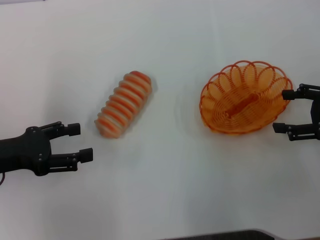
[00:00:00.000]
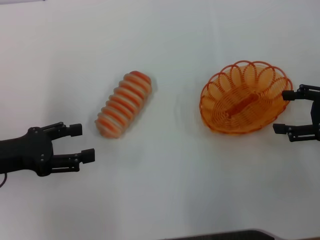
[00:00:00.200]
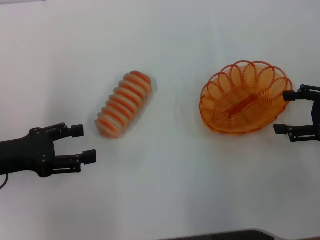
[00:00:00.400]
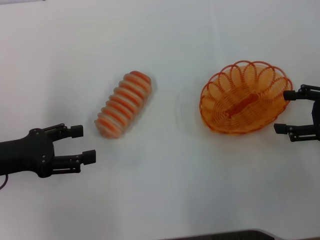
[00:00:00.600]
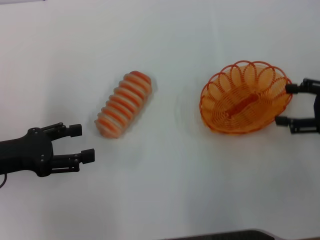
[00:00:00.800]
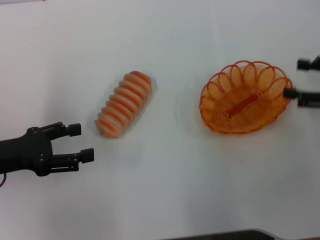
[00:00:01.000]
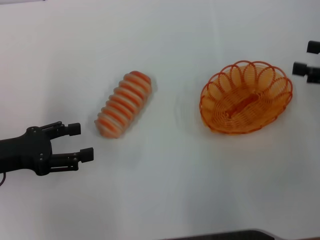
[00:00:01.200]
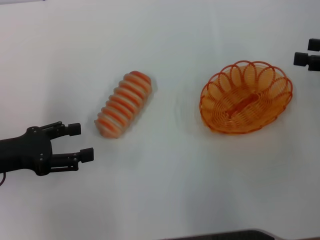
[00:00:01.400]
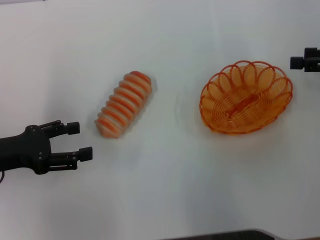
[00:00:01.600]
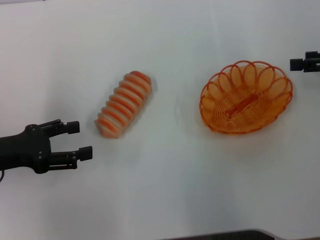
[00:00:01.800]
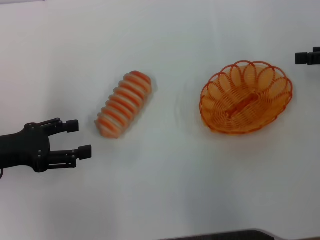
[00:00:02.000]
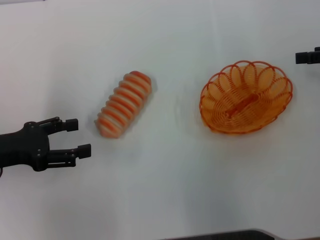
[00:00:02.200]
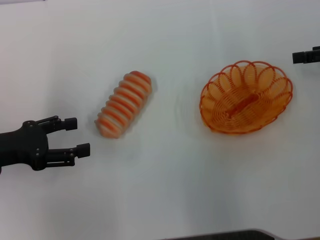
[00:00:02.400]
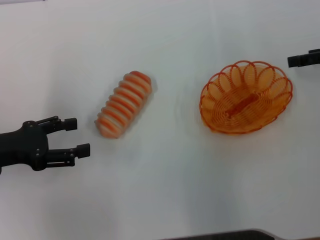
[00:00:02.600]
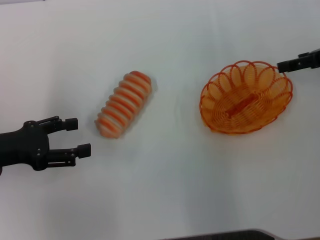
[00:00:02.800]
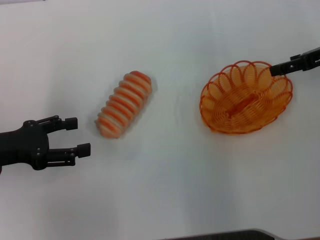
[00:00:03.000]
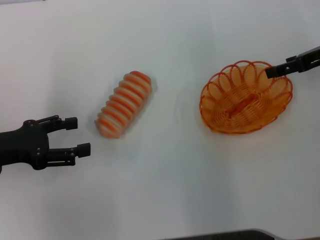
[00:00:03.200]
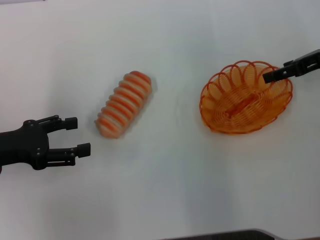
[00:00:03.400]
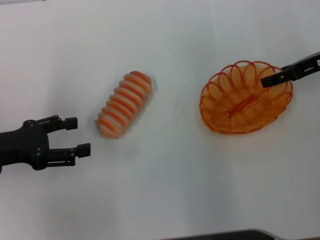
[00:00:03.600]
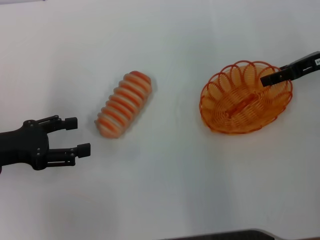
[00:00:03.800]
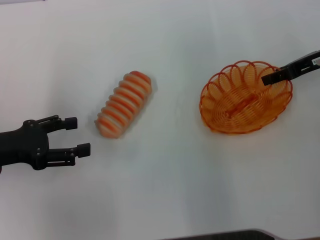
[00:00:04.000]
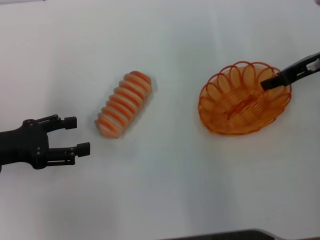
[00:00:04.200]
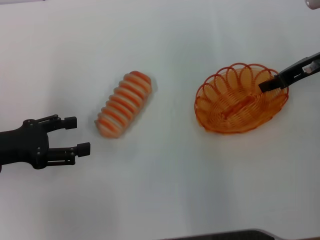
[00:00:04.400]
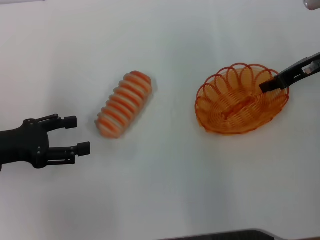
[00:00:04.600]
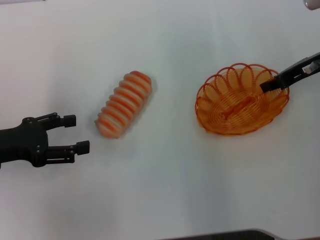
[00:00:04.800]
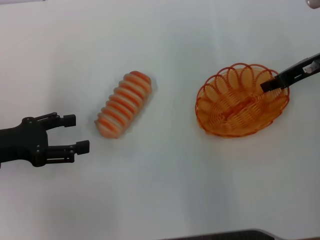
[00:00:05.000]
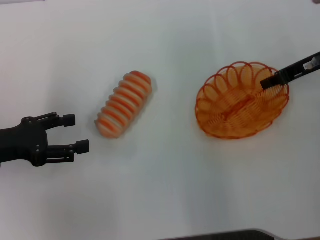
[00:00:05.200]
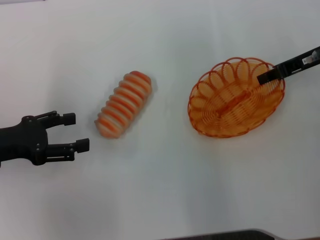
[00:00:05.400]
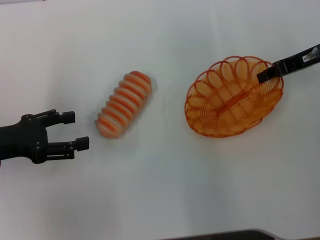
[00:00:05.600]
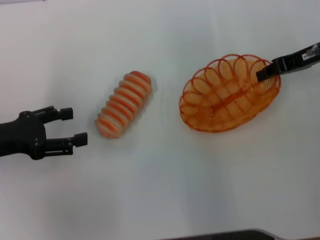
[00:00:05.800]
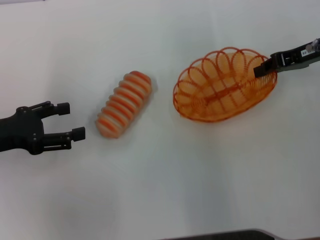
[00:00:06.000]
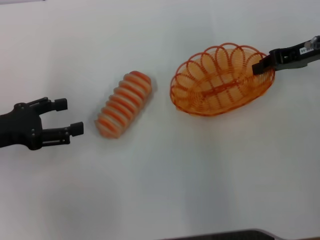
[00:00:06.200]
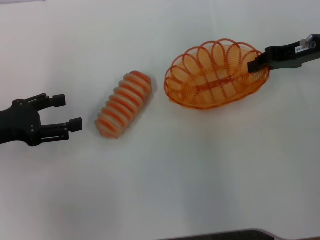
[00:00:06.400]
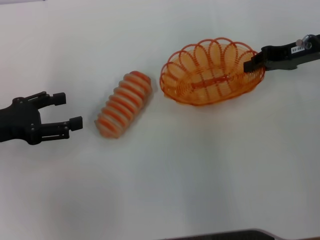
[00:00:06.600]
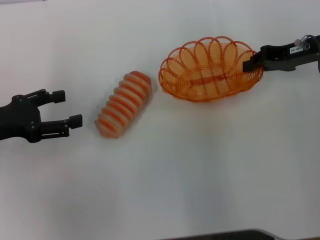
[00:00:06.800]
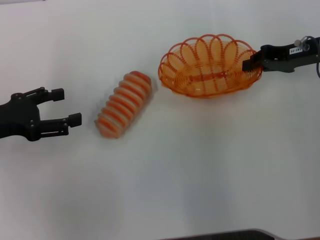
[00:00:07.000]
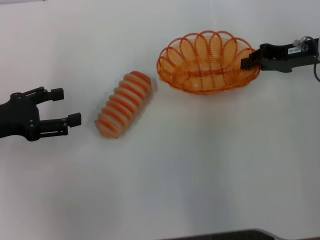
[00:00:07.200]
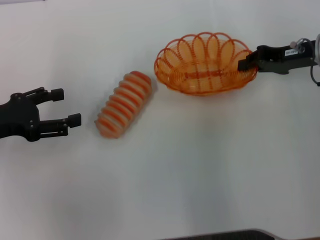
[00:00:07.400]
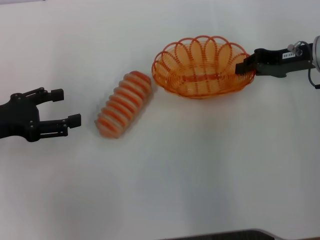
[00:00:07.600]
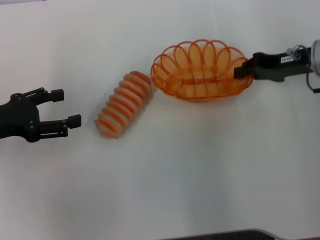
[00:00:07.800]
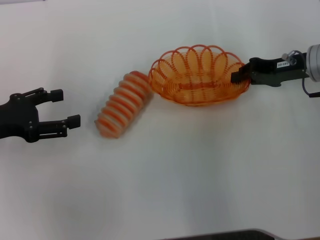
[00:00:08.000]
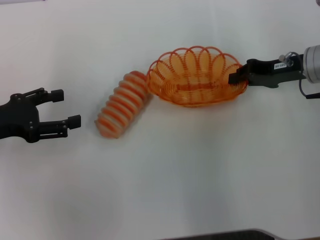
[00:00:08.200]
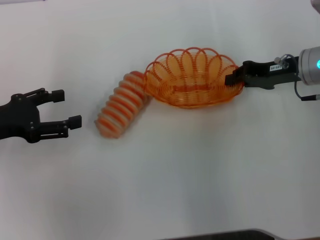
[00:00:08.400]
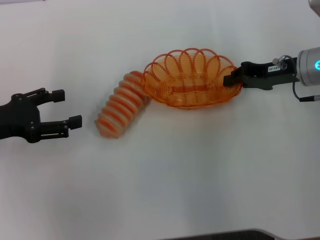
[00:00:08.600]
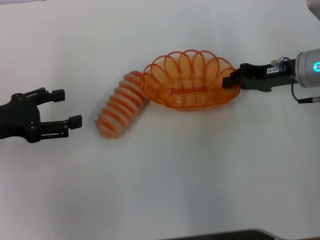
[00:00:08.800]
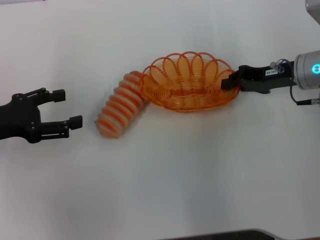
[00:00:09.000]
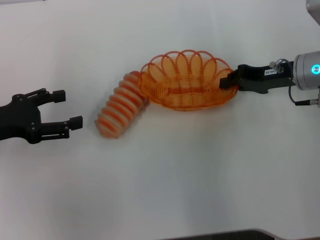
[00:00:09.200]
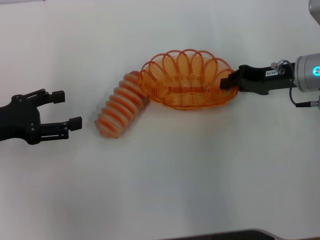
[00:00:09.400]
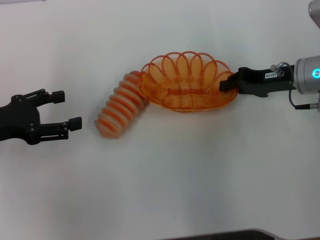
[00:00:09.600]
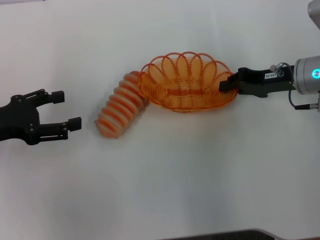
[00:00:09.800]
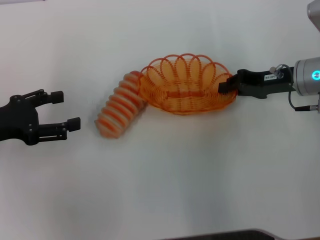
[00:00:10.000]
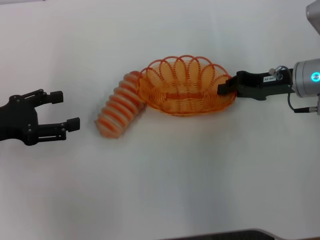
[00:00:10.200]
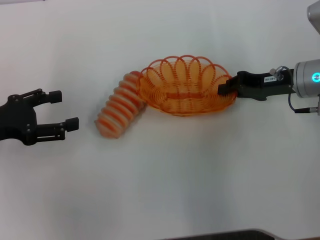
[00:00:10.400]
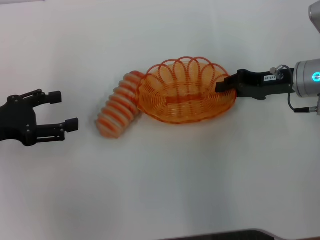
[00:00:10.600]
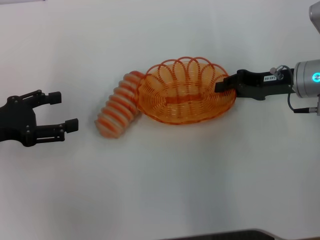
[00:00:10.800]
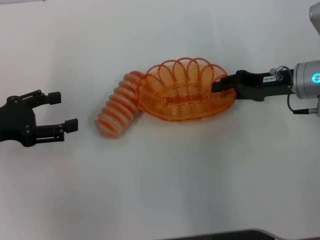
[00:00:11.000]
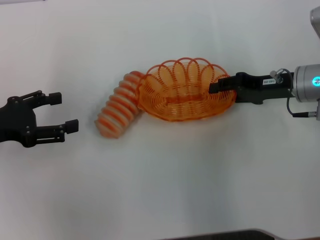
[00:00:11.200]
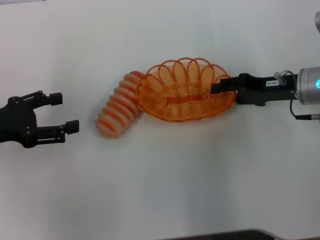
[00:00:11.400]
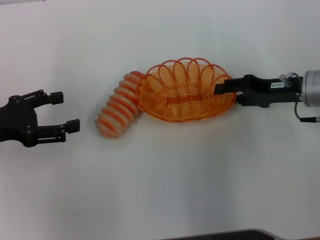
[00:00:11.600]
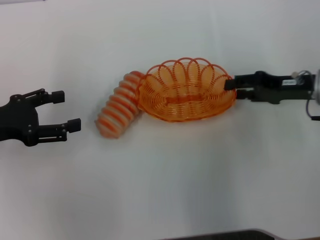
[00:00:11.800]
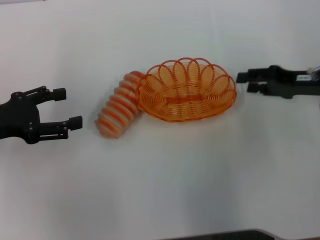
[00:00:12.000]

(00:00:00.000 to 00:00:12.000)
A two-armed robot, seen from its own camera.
Step, 00:00:00.000 - 00:00:06.000: Pick up the basket with the right gripper.
00:00:00.000 - 00:00:01.600: The right gripper heads upward, covering roughly 5 cm.
00:00:01.600 - 00:00:03.000: The right gripper goes some 5 cm forward.
00:00:03.000 - 00:00:04.400: The right gripper closes up.
00:00:04.400 - 00:00:06.000: There are only small adjustments of the grippers.
00:00:06.000 - 00:00:07.600: The grippers make only small movements.
00:00:07.600 - 00:00:09.000: The grippers make only small movements.
00:00:09.000 - 00:00:10.400: Both grippers stay put.
00:00:10.400 - 00:00:12.000: The right gripper ends up some 5 cm from where it was, and opens its fingers.

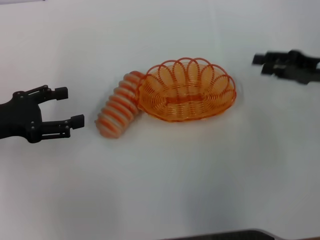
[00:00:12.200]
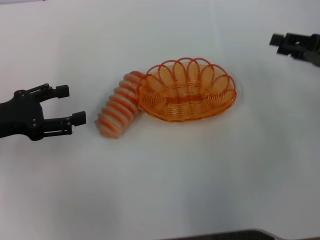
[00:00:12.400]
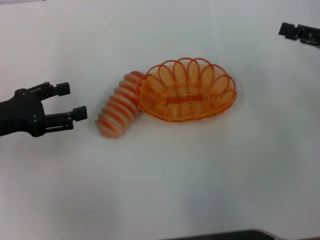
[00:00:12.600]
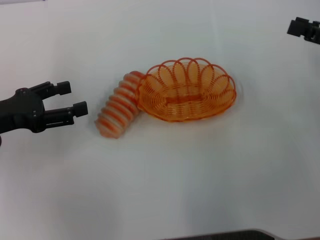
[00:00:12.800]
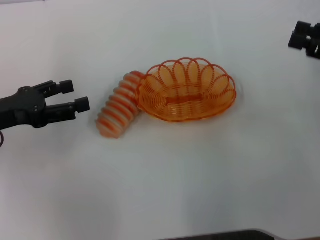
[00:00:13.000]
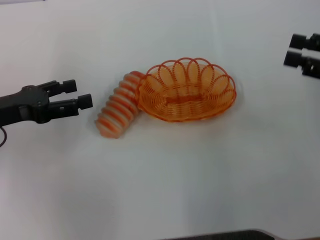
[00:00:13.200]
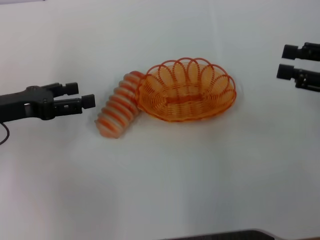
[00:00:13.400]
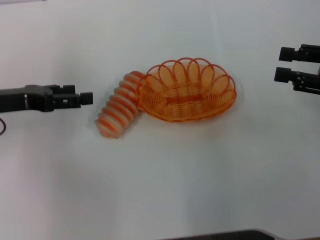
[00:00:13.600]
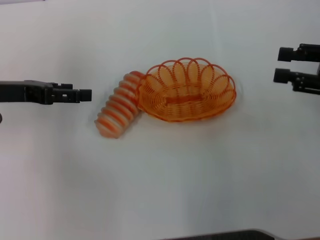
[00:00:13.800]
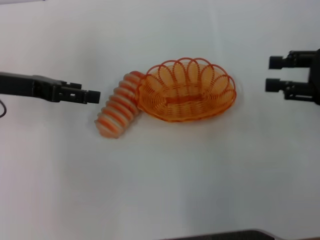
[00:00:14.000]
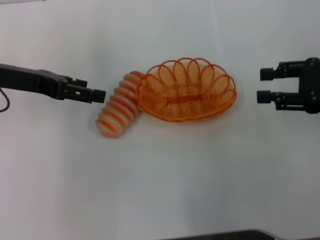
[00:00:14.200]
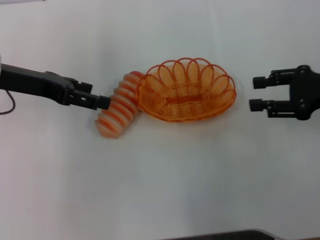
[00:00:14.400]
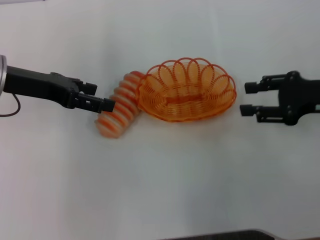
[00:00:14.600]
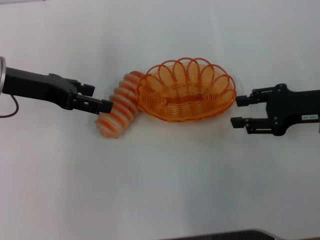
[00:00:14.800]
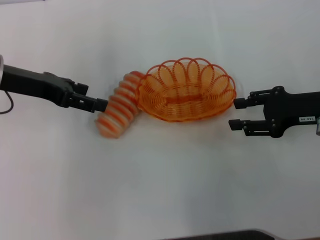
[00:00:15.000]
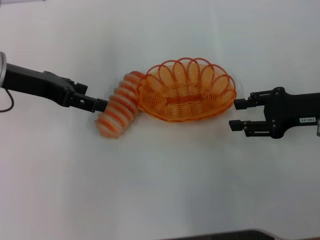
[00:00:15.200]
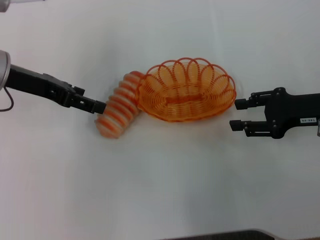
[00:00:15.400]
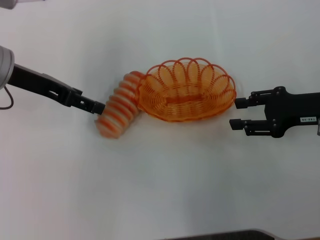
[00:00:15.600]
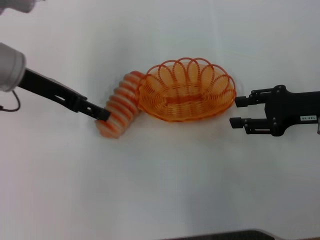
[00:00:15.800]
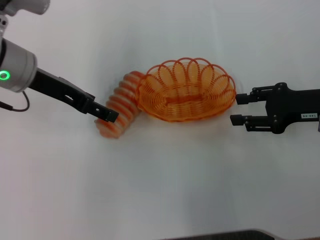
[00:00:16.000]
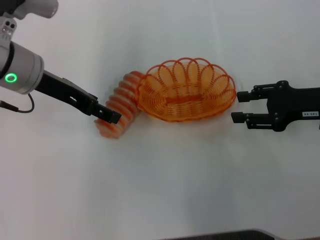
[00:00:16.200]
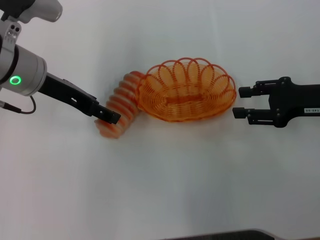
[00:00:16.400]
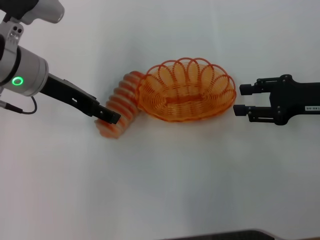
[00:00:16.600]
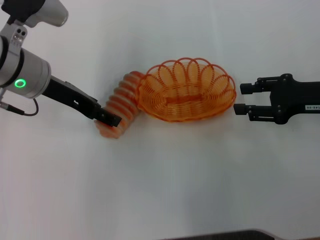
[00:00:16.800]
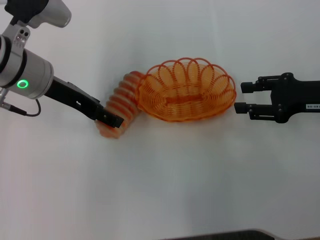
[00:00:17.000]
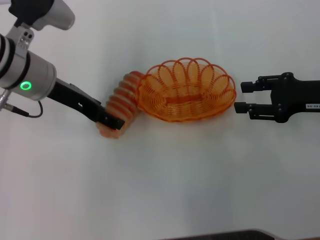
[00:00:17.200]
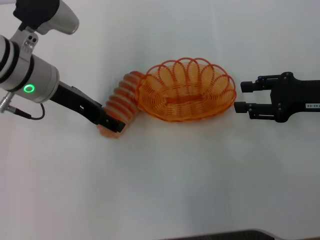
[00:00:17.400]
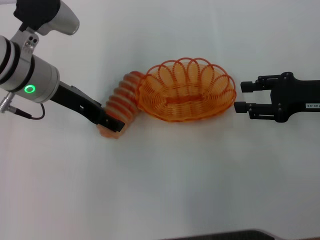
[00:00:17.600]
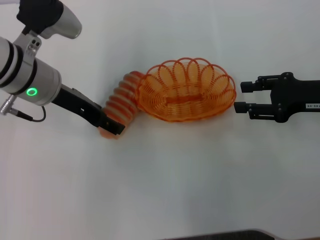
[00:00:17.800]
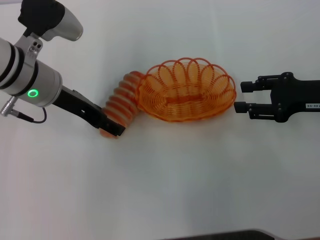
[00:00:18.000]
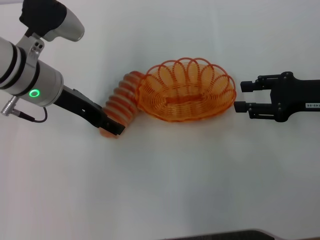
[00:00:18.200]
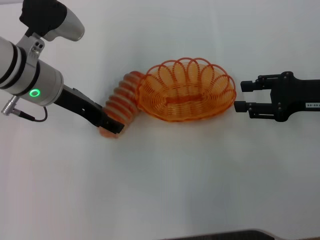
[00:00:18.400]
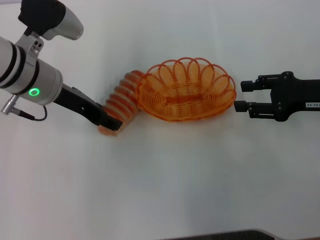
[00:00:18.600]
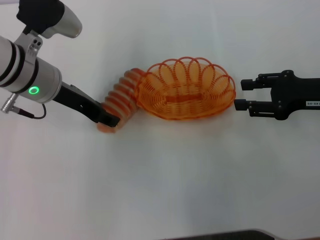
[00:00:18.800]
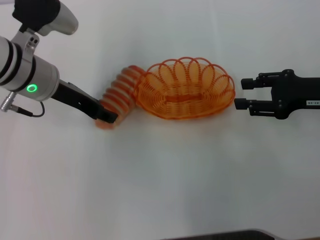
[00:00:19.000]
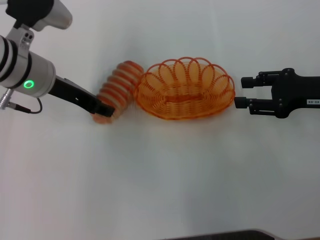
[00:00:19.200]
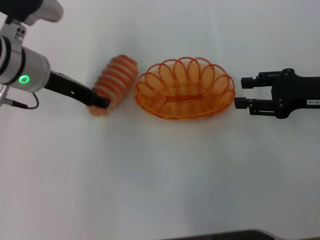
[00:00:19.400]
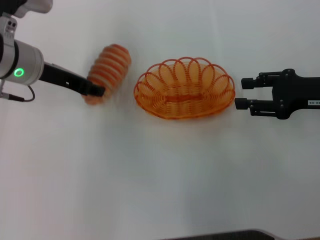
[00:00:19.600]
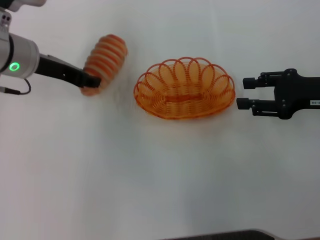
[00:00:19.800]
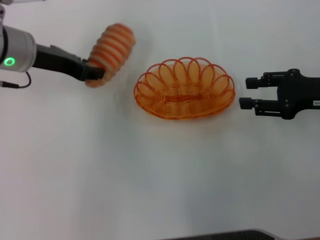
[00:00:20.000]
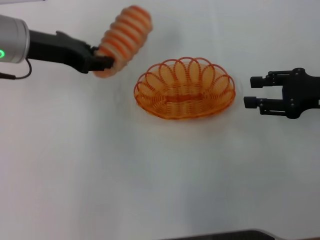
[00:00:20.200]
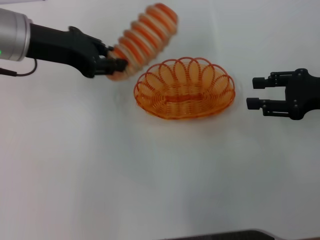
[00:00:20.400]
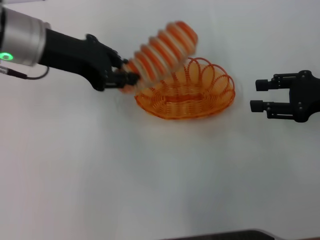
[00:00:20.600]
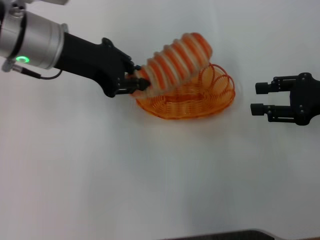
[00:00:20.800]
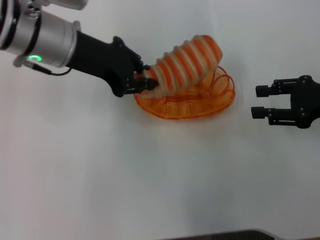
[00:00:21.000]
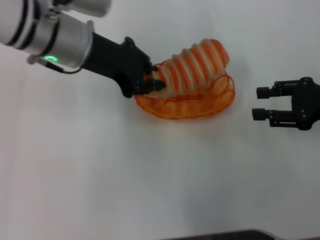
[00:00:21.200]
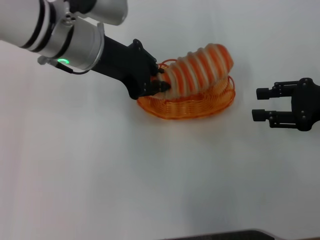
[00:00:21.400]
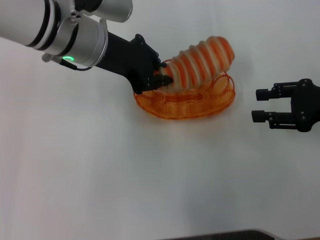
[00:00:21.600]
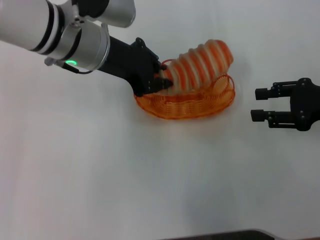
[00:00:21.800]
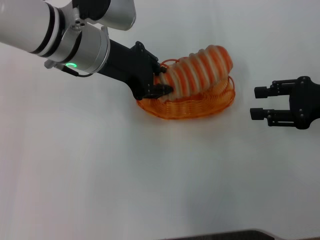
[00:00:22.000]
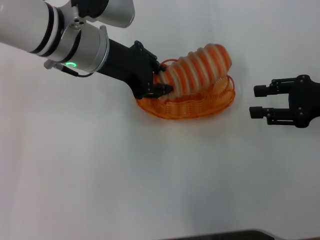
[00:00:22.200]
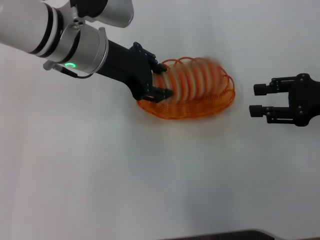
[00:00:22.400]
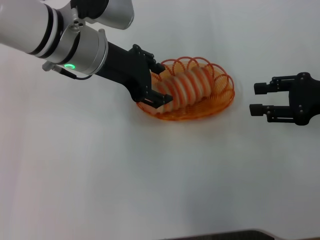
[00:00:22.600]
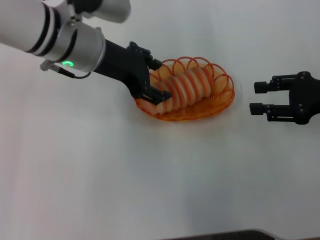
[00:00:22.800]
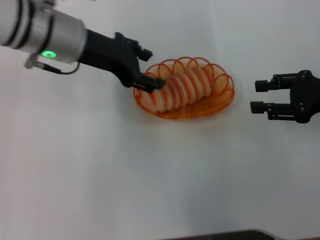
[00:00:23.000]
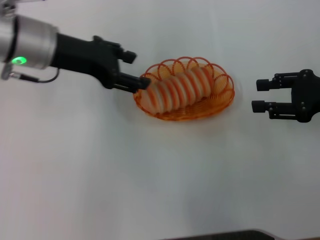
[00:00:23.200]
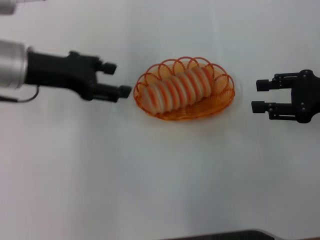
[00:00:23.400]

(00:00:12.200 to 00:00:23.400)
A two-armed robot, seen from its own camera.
Step, 00:00:12.400 - 00:00:19.600: Pick up the long bread with the left gripper.
Step, 00:00:19.800 - 00:00:23.200: Place the long bread into the basket with the left gripper.
00:00:12.200 - 00:00:13.800: The right gripper moves approximately 5 cm; the left gripper moves forward, some 5 cm.
00:00:13.800 - 00:00:15.400: The right gripper shifts about 5 cm downward. Meanwhile the left gripper moves approximately 5 cm.
00:00:15.400 - 00:00:17.000: The left gripper travels to the right by approximately 5 cm.
00:00:17.000 - 00:00:18.600: The grippers make only small movements.
00:00:18.600 - 00:00:20.200: The left gripper shifts by roughly 5 cm, and closes up.
00:00:20.200 - 00:00:21.800: The left gripper travels to the right by some 10 cm.
00:00:21.800 - 00:00:23.400: The left gripper is displaced to the left by approximately 10 cm, and opens up.
